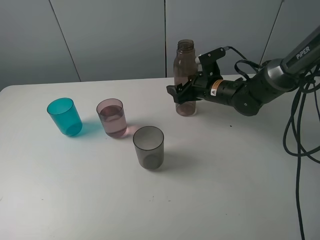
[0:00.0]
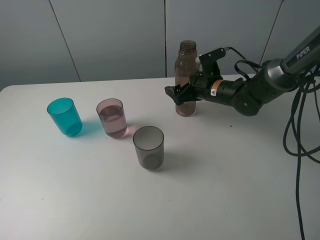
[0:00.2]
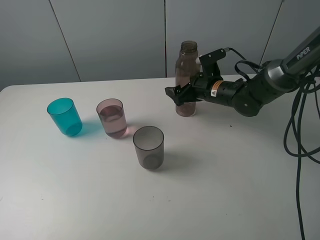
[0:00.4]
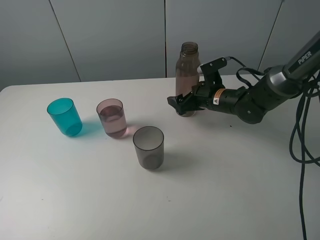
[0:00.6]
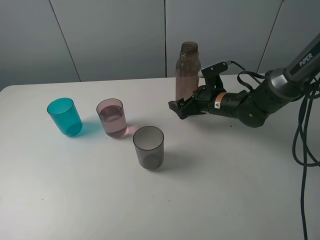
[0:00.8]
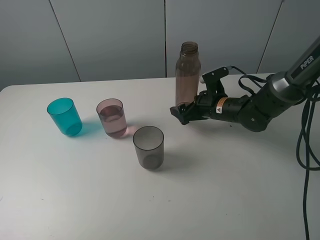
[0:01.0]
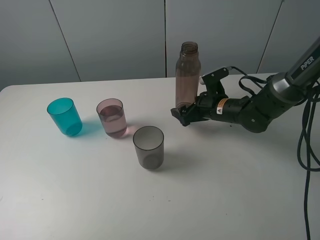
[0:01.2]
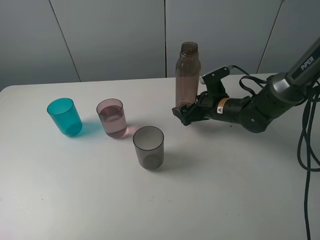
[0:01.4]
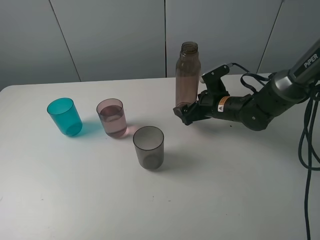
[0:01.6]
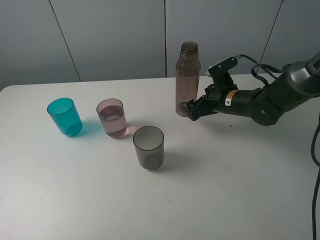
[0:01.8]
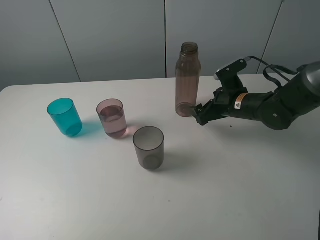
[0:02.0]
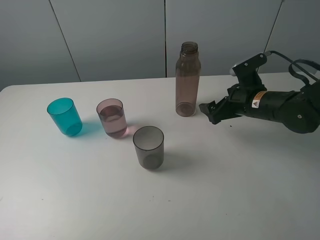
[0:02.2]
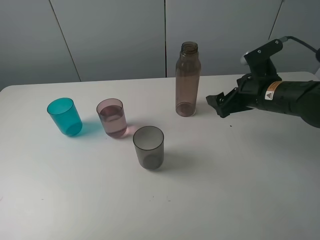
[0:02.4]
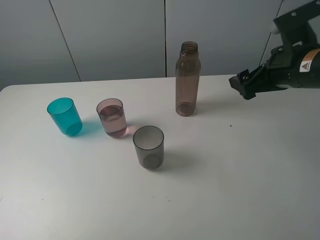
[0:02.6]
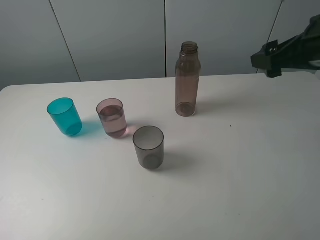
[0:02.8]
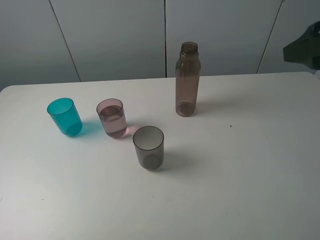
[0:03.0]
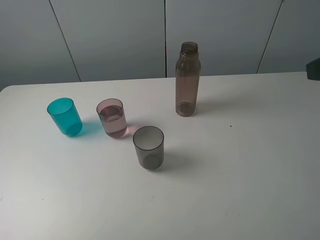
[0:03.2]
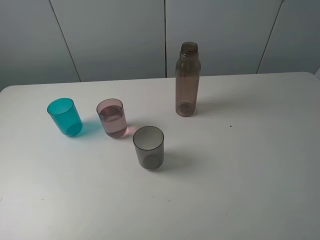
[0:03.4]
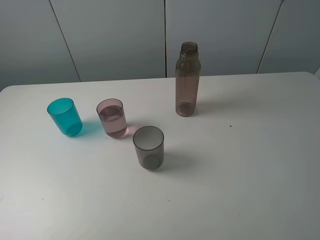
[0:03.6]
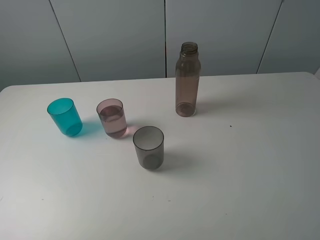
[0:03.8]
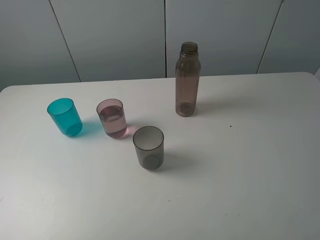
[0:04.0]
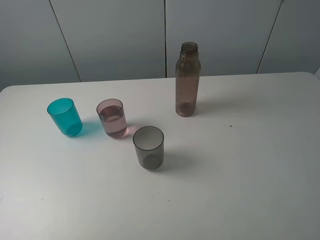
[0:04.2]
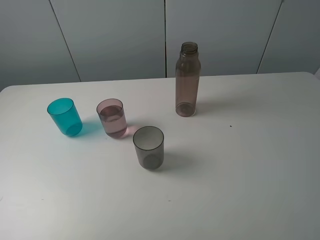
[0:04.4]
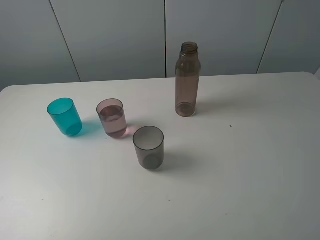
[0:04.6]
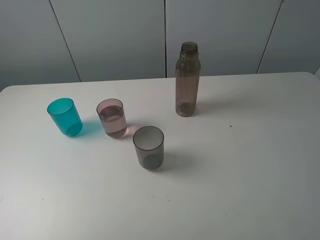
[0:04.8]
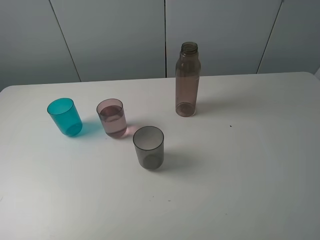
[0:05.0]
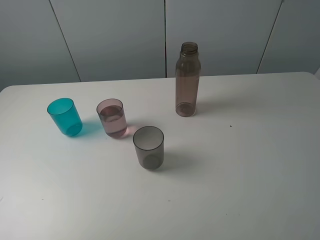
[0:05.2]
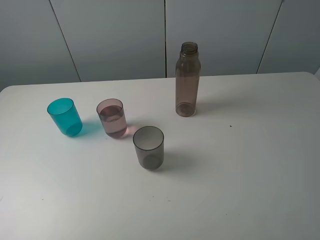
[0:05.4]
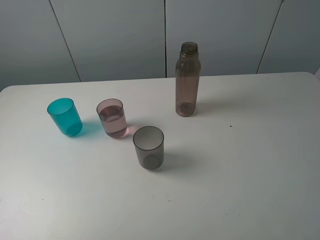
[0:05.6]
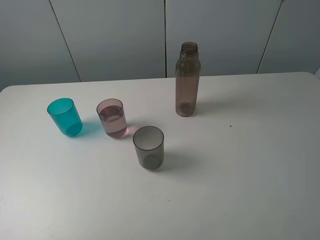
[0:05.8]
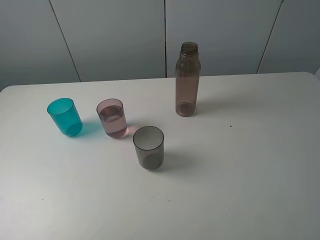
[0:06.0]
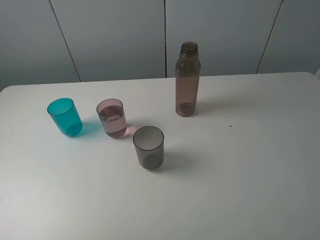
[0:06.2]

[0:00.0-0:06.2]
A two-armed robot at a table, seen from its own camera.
Task of the whole recording: pick up the bottle filled with water and pour water into the middle cup of the three cups.
0:00.0 to 0:01.6: The right gripper opens.
0:01.6 to 0:03.2: The right gripper is displaced upward, backward and to the right by about 35 cm.
0:04.6 to 0:06.2: Both grippers stay put.
